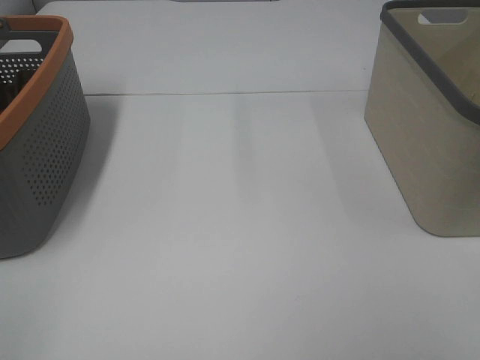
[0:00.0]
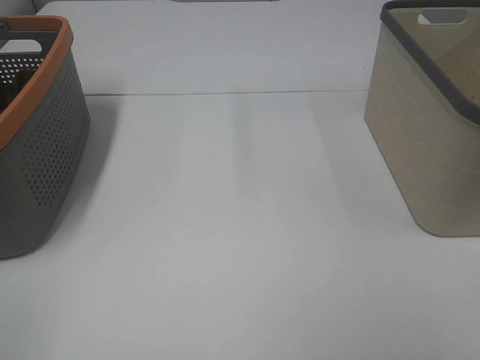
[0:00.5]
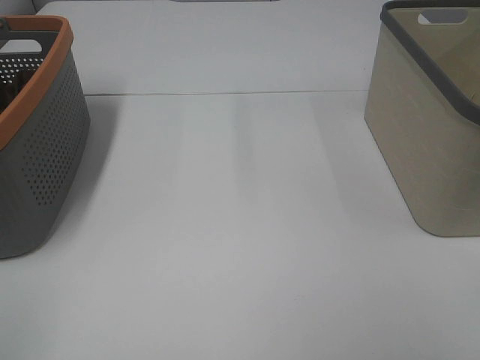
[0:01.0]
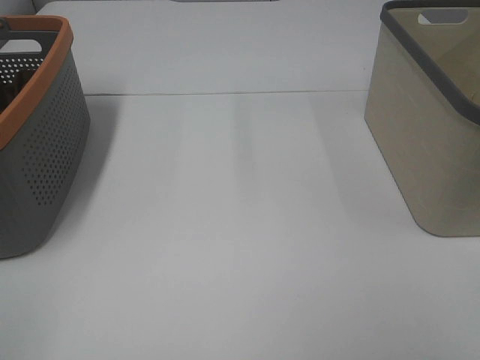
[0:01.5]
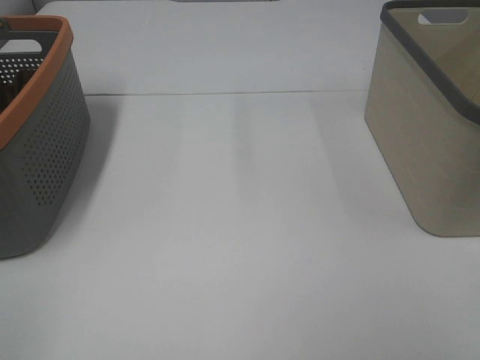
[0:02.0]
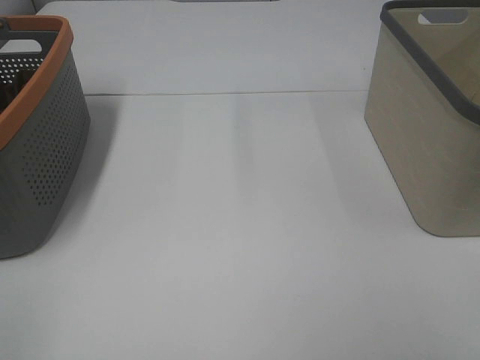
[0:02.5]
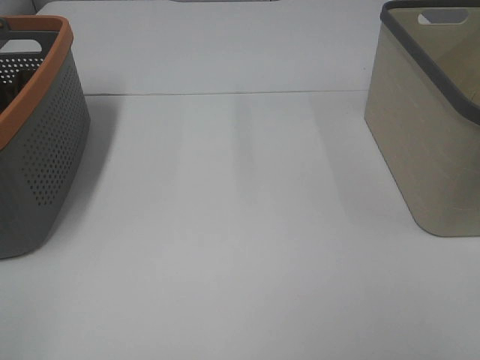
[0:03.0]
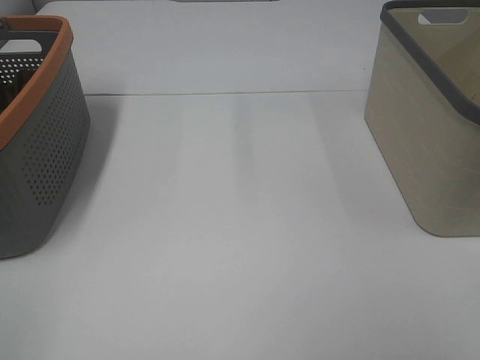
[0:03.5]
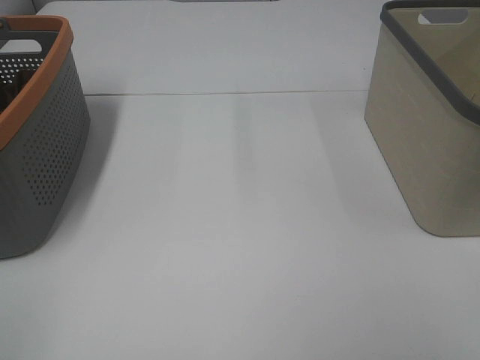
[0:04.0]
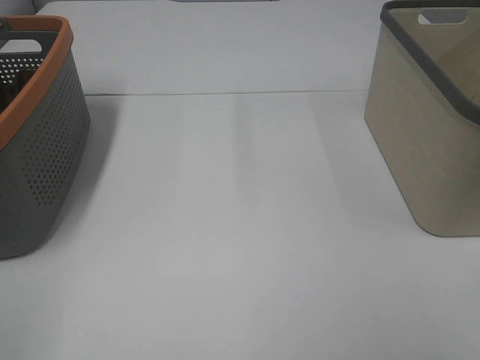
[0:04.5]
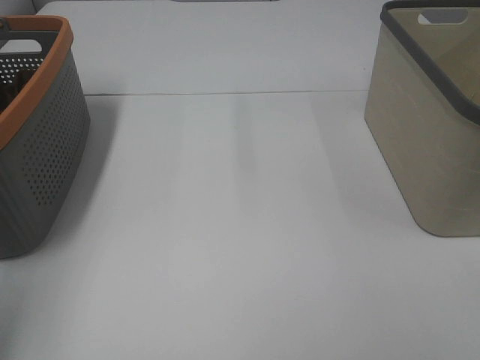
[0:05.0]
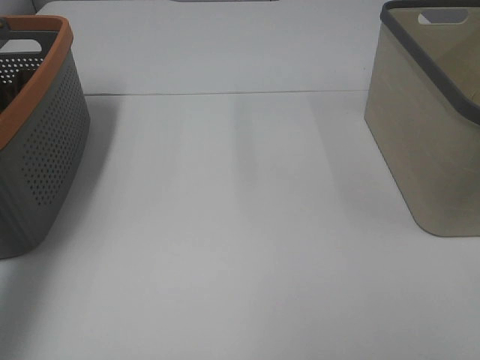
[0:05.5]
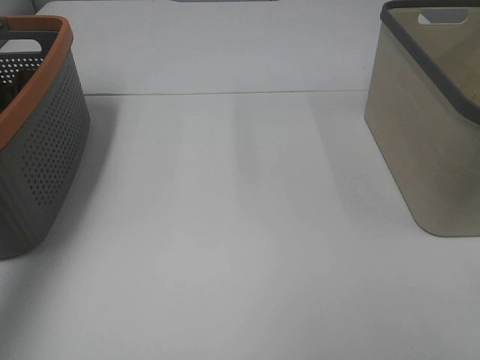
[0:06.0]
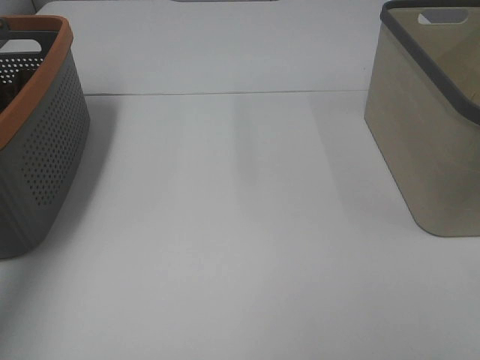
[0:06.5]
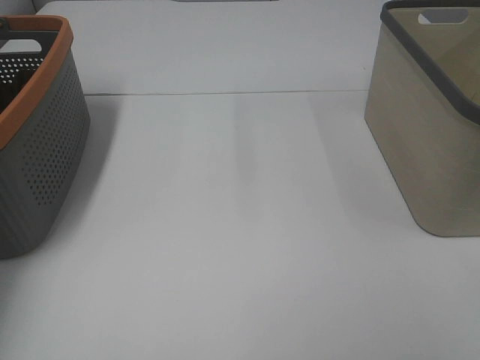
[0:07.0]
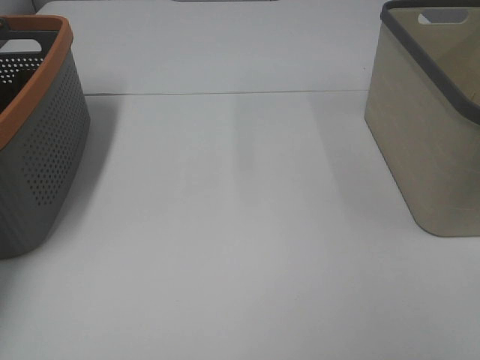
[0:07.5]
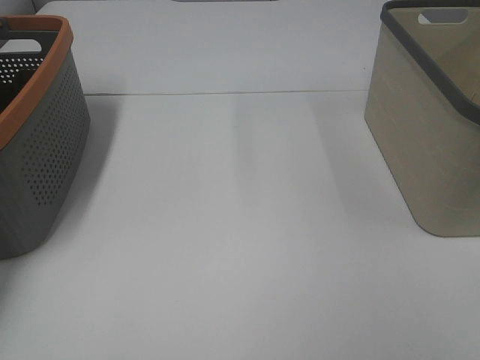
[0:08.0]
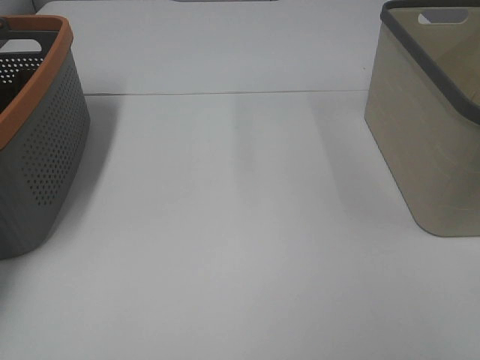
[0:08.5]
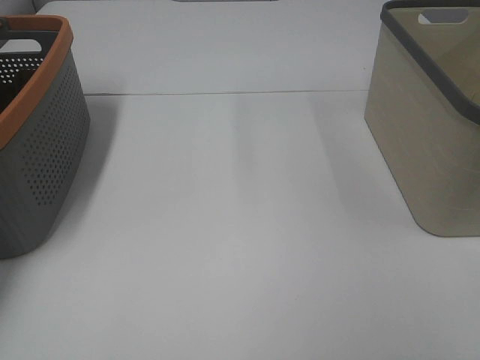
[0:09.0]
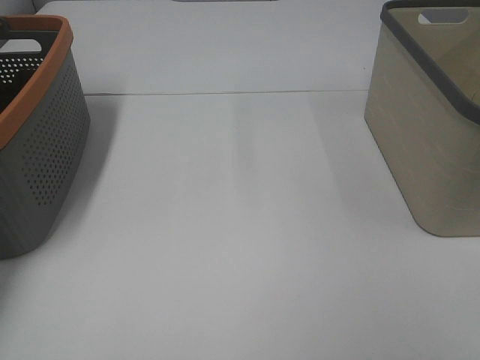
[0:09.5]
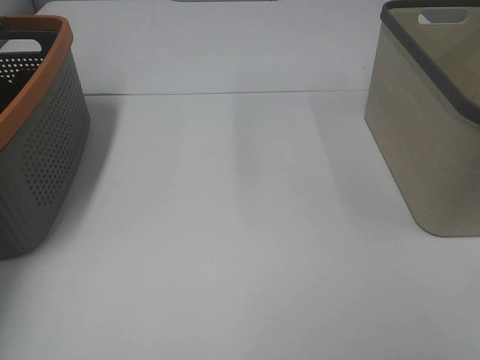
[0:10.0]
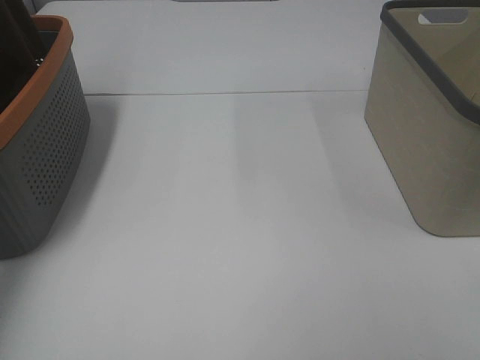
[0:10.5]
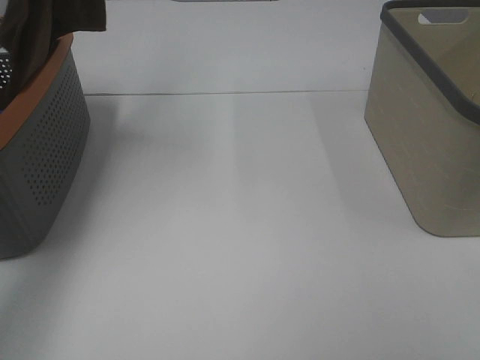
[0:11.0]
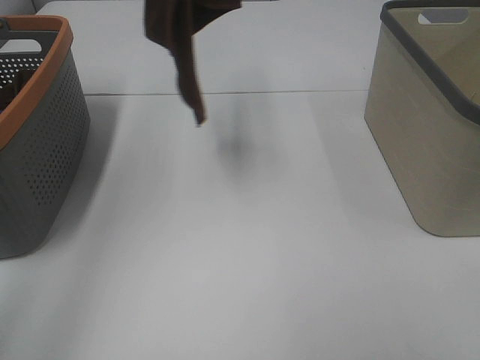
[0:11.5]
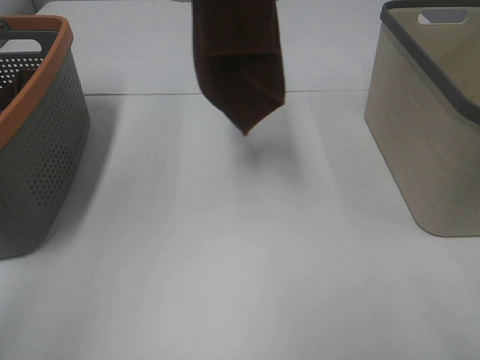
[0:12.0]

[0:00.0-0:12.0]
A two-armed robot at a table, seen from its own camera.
Task of the whole recording: Remove the towel and place it.
0:00.0 to 0:04.0: The two grippers keep their place.
0:04.0 to 0:06.0: The left gripper goes some 35 cm forward.
0:06.0 to 0:08.0: The left gripper goes approximately 20 cm downward, forward and to the left.
0:10.0 to 0:12.0: The right gripper goes some 5 cm forward. Meanwhile the left gripper heads to the right and upward, covering some 25 cm.

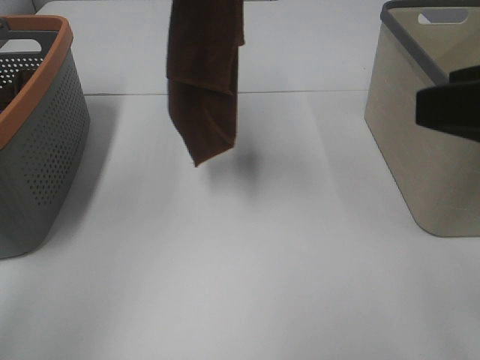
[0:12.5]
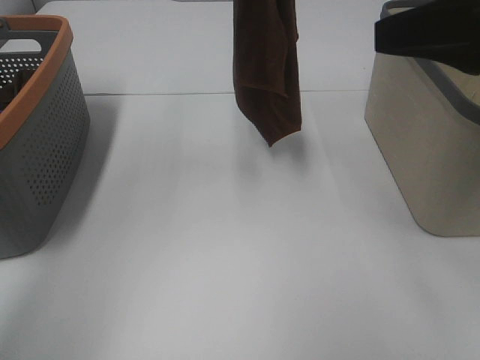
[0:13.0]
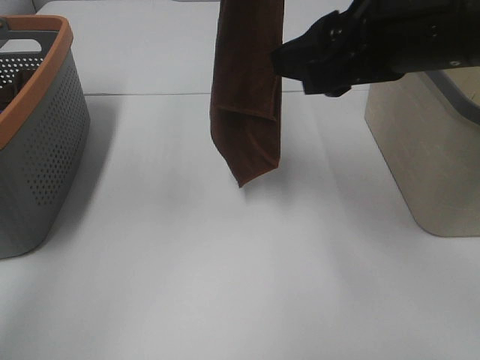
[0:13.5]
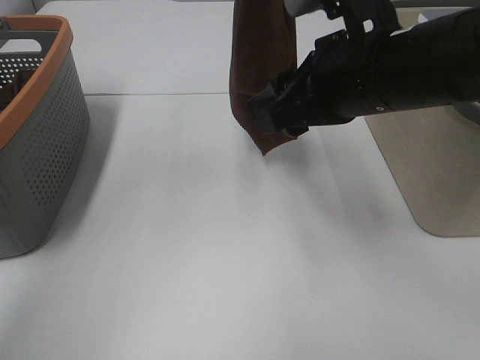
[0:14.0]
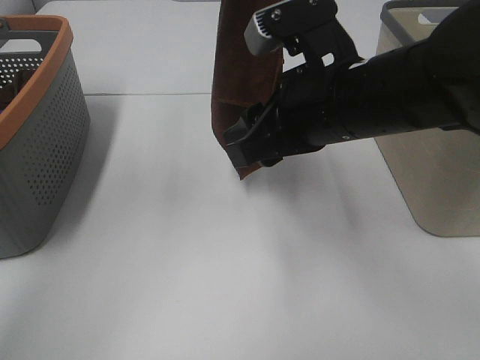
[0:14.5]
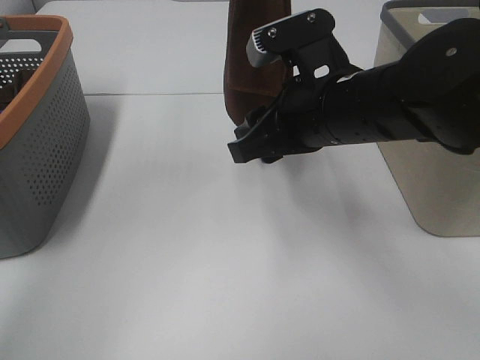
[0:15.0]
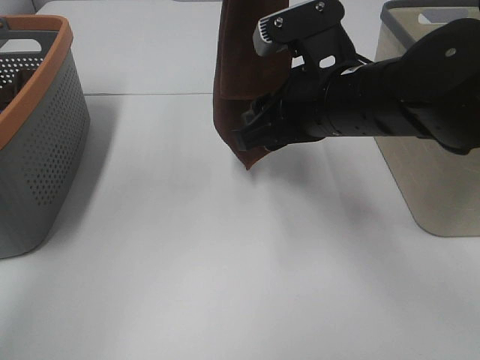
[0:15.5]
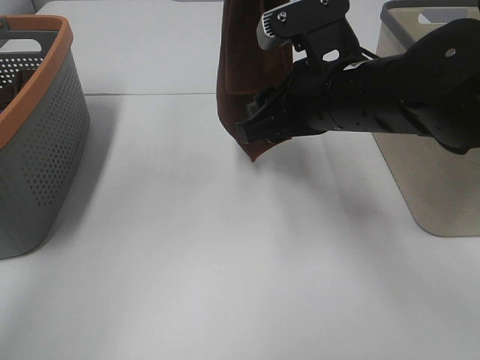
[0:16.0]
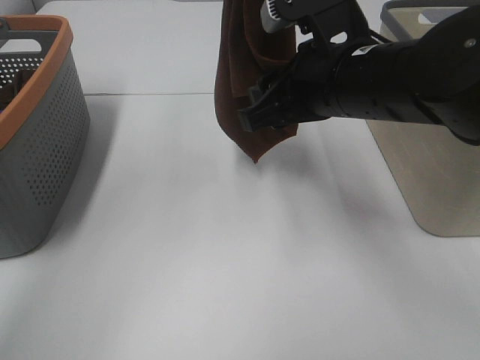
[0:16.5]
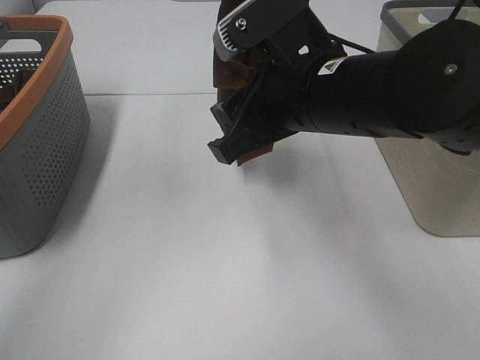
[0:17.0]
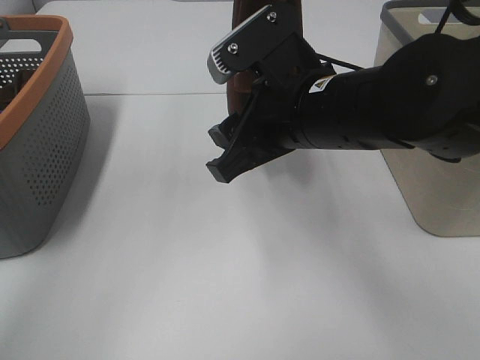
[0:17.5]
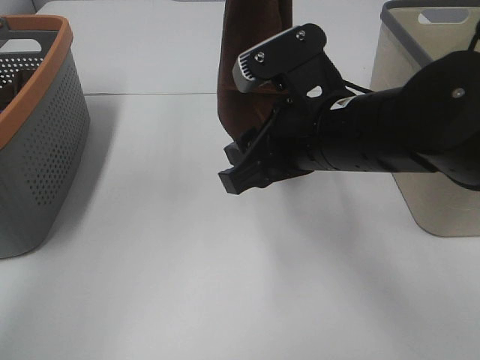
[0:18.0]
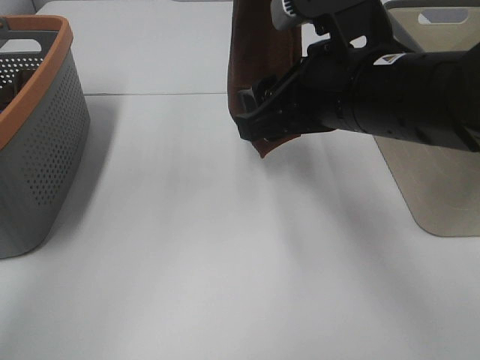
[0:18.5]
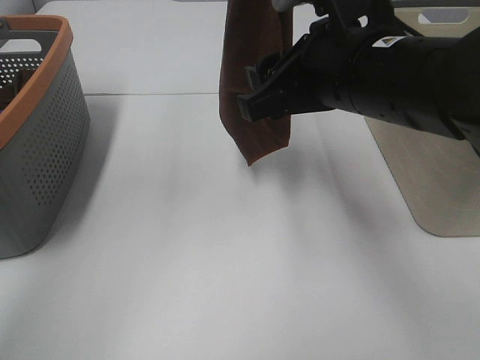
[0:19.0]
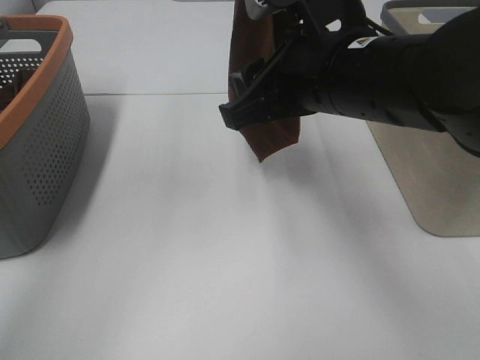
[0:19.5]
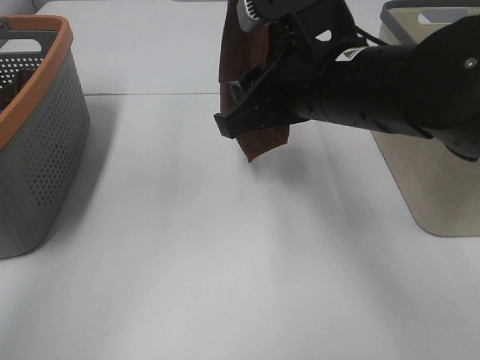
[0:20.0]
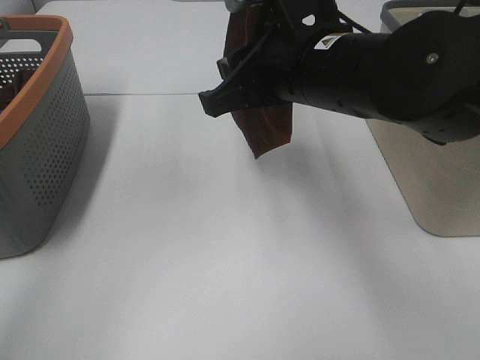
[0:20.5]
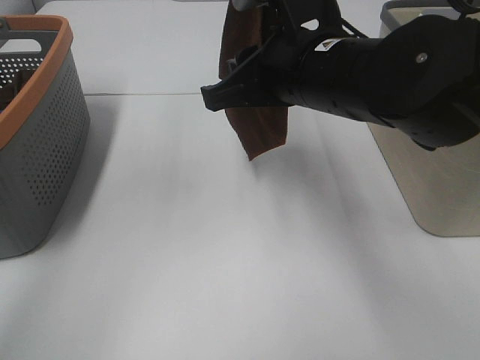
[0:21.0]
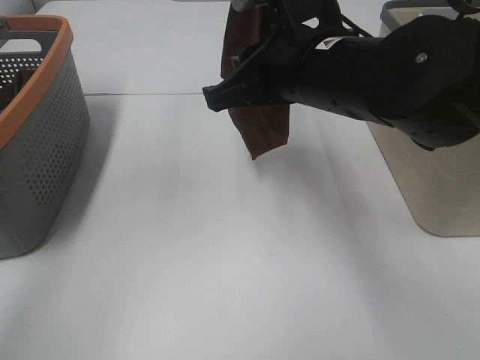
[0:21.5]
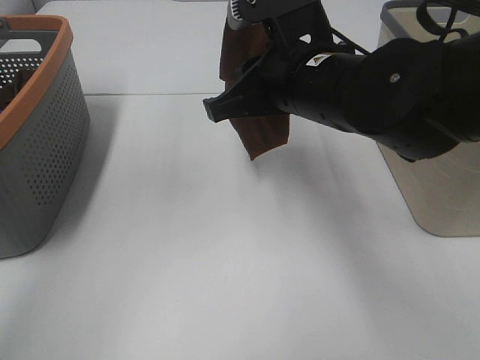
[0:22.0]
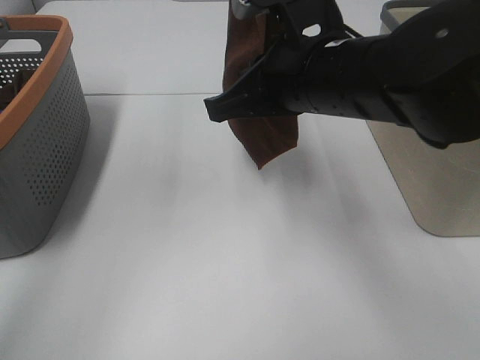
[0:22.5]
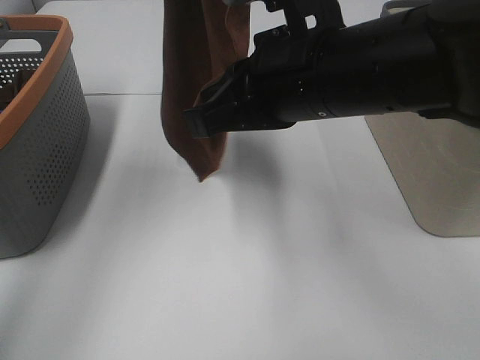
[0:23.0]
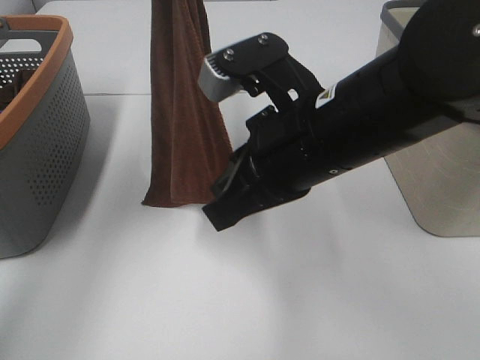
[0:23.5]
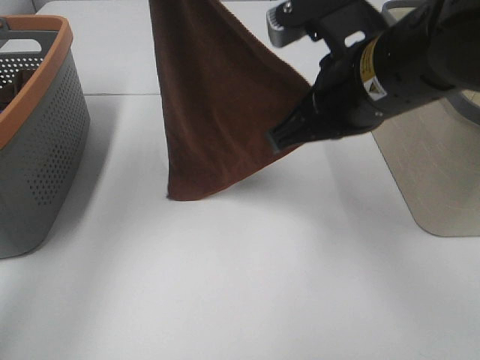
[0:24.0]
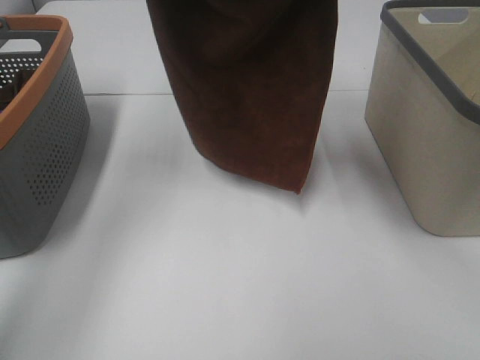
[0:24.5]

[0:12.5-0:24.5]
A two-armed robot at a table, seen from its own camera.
Task of the whole recording: Remove the towel and place it.
Step, 0:12.5 to 0:20.0: Right hand: grab a corner of the brown towel and straighten it.
Step, 0:20.5 to 0:22.5: Left hand: spread the brown towel flat on the table.
Step, 0:20.5 to 0:22.5: Right hand: spread the brown towel flat on the table.
0:12.5 to 0:14.5: The right gripper moves to the left, forward and downward, approximately 20 cm.
0:14.5 to 0:18.5: The grippers move only a little.
0:18.5 to 0:20.5: The grippers make only small movements.
0:20.5 to 0:22.5: The right gripper closes.
0:22.5 to 0:24.5: The right gripper goes approximately 10 cm upward and forward. Meanwhile the left gripper travels to the left and downward by about 10 cm.

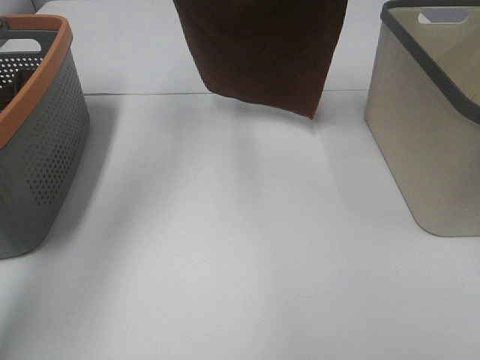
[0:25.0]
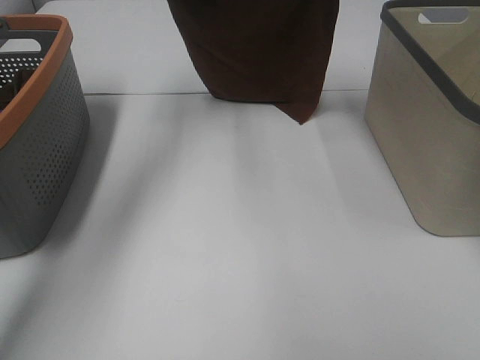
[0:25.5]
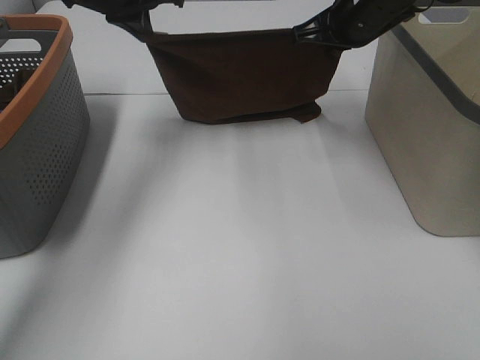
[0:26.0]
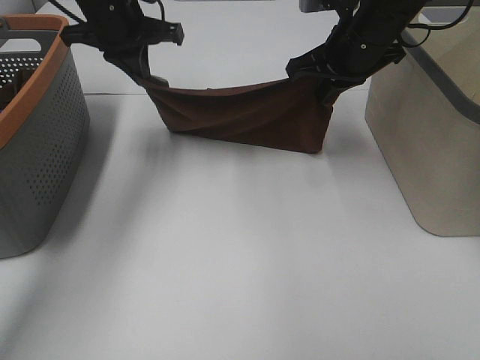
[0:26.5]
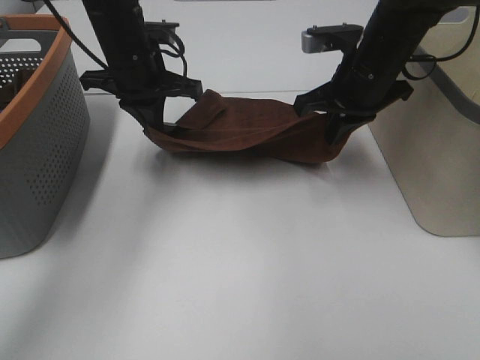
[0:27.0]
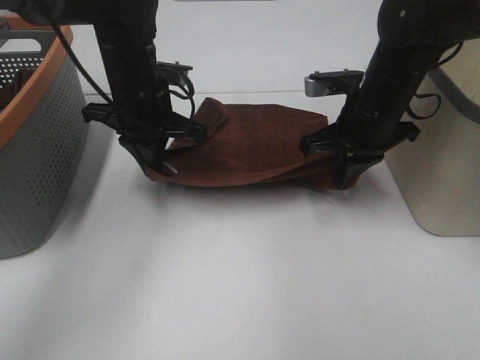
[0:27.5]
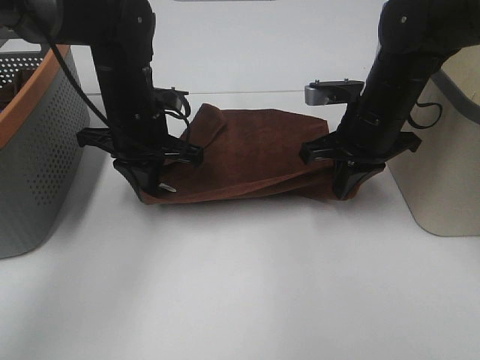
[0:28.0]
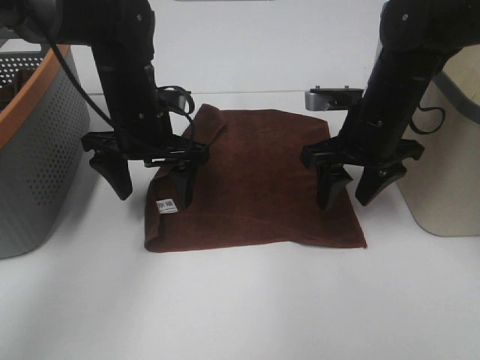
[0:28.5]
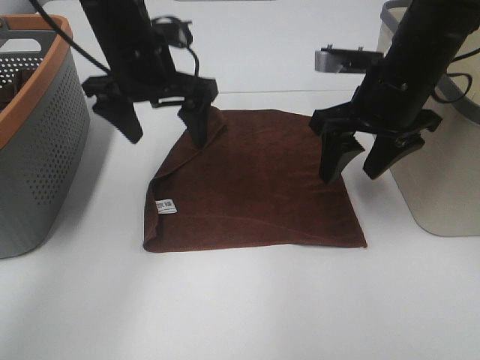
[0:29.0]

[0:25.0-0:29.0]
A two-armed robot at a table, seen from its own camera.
Task of the whole recording: Remove the towel and place it.
0:25.0 to 0:27.0: Both grippers travel together downward, about 15 cm.
0:27.0 to 0:29.0: The grippers both shift backward by about 5 cm. The left gripper opens up. The right gripper opens its fingers.
